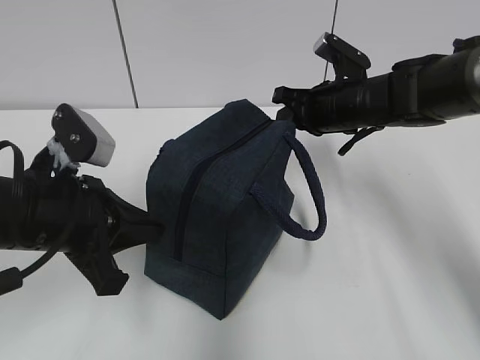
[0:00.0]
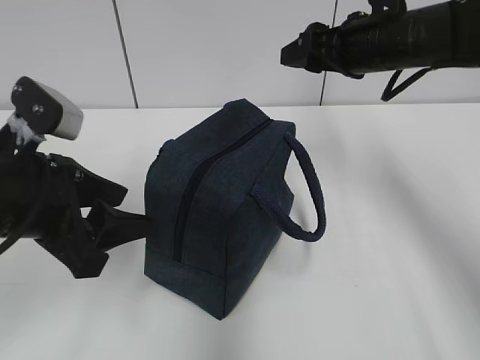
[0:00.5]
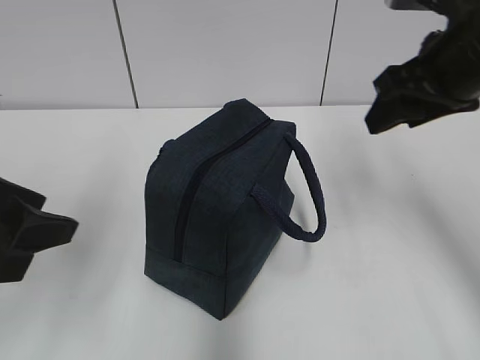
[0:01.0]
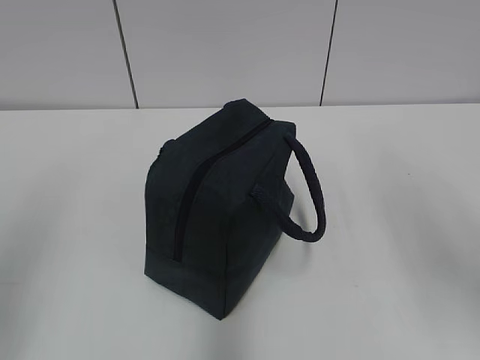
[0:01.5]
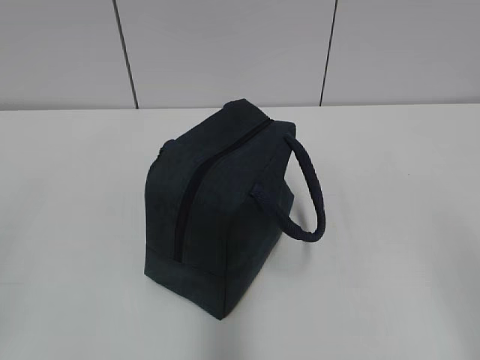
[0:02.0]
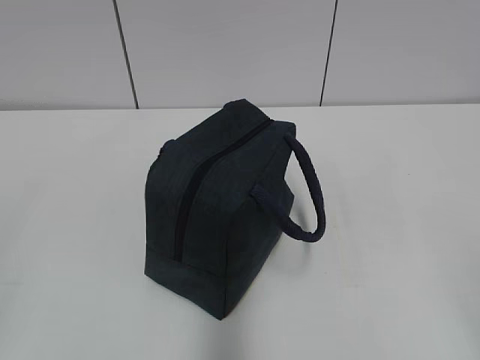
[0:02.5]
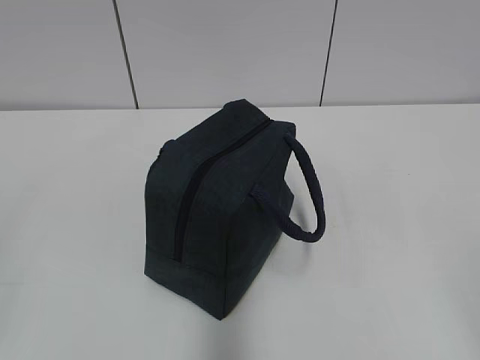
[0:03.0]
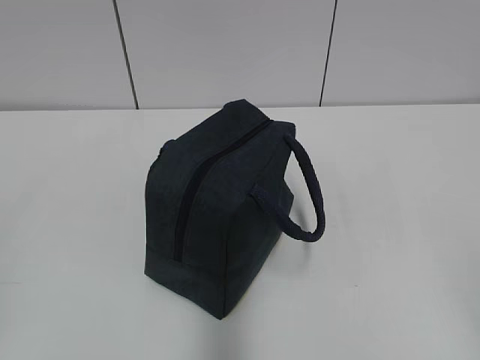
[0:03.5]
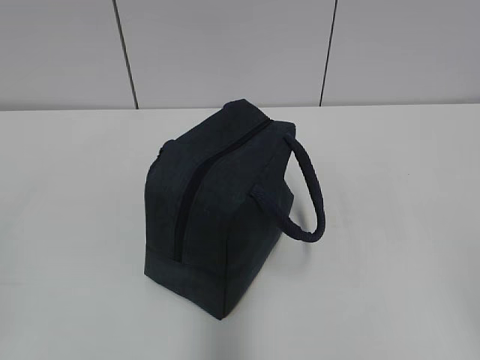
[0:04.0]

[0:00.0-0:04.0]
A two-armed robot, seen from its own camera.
0:00.0 to 0:02.0: The left gripper travels backward, to the left and upward by about 25 cm, and opens its fingers; the right gripper goes approximately 40 cm backward, and opens.
